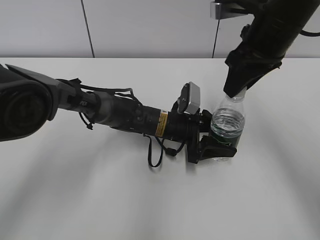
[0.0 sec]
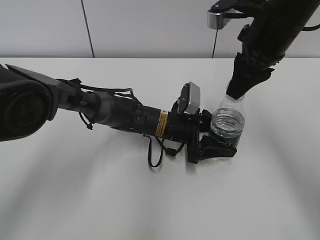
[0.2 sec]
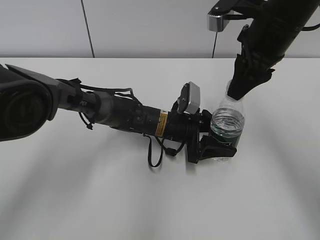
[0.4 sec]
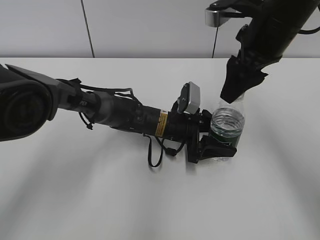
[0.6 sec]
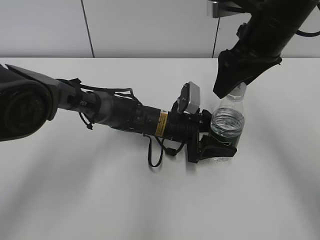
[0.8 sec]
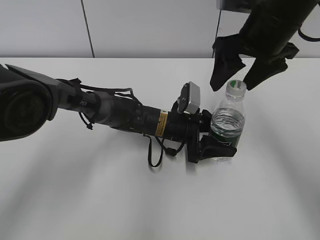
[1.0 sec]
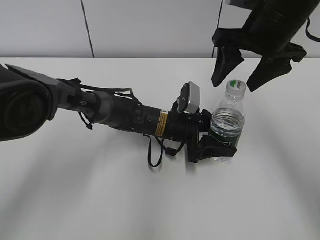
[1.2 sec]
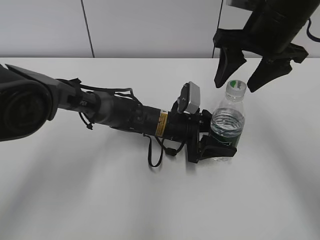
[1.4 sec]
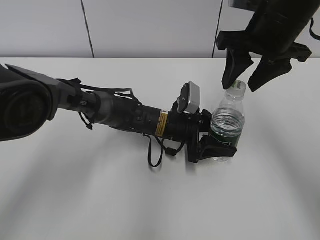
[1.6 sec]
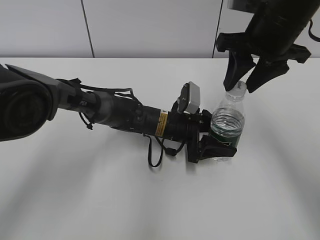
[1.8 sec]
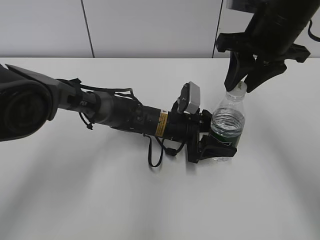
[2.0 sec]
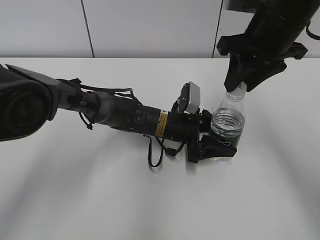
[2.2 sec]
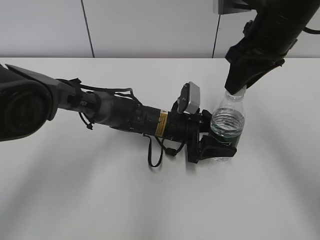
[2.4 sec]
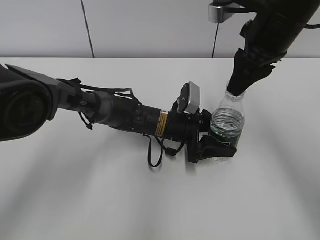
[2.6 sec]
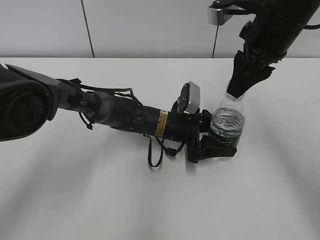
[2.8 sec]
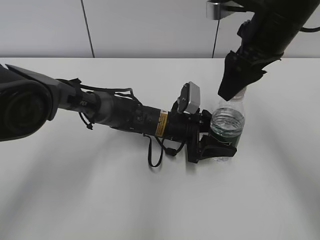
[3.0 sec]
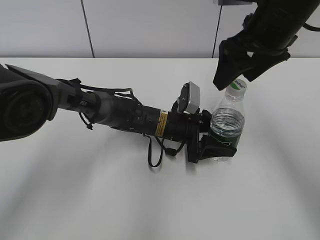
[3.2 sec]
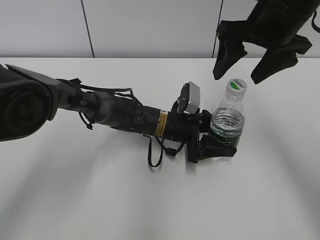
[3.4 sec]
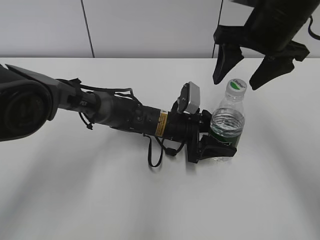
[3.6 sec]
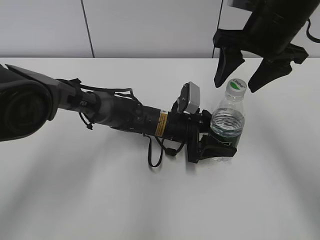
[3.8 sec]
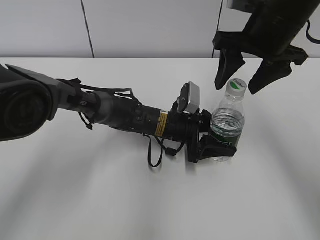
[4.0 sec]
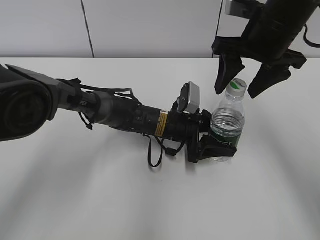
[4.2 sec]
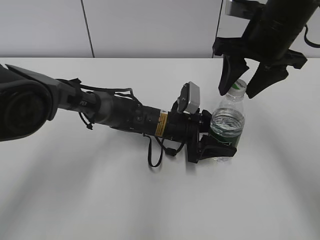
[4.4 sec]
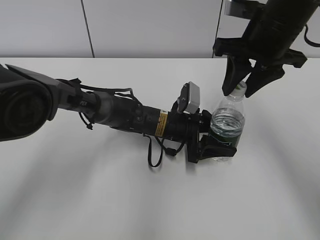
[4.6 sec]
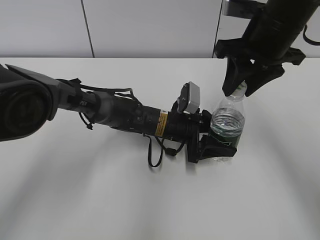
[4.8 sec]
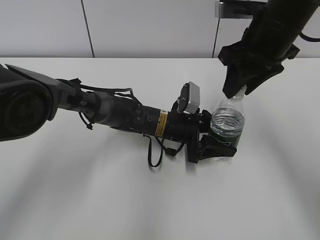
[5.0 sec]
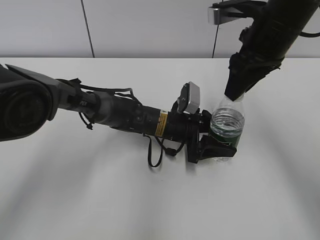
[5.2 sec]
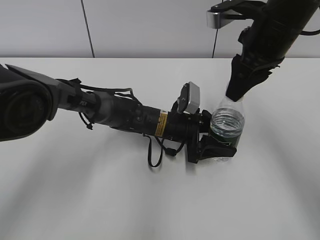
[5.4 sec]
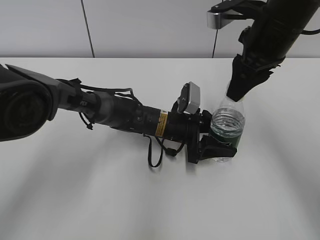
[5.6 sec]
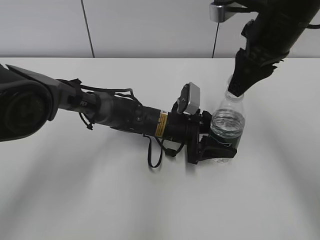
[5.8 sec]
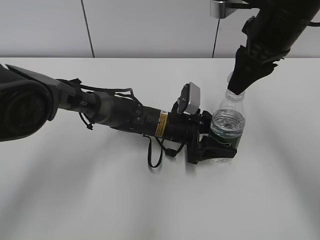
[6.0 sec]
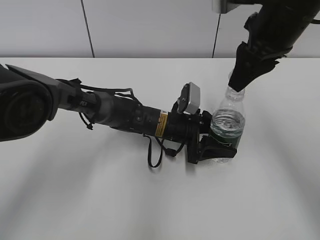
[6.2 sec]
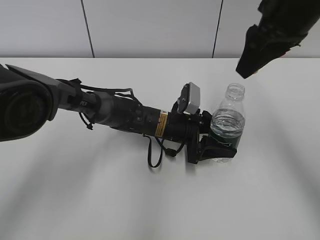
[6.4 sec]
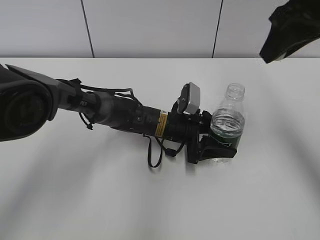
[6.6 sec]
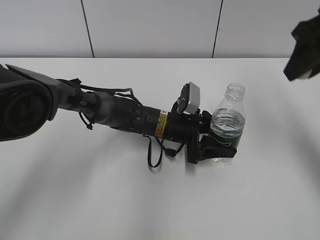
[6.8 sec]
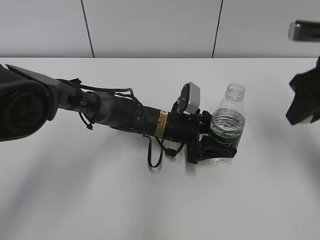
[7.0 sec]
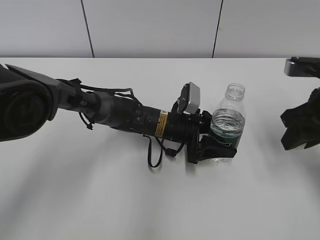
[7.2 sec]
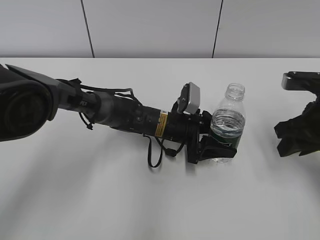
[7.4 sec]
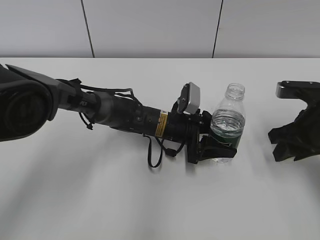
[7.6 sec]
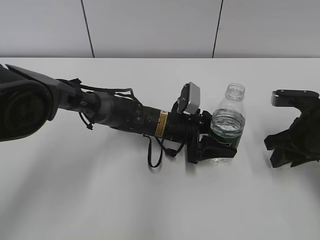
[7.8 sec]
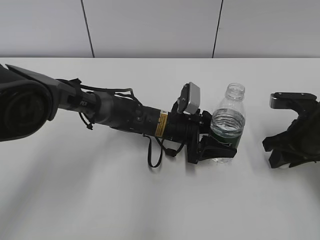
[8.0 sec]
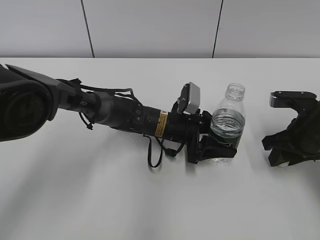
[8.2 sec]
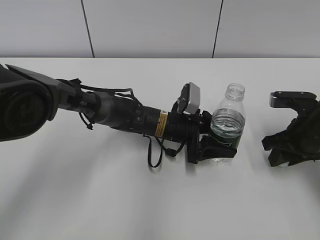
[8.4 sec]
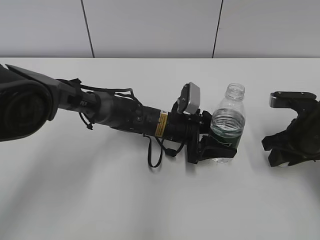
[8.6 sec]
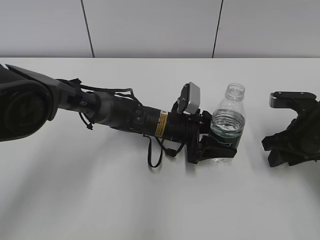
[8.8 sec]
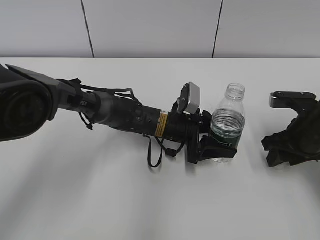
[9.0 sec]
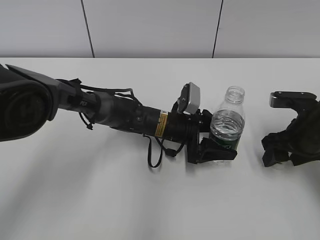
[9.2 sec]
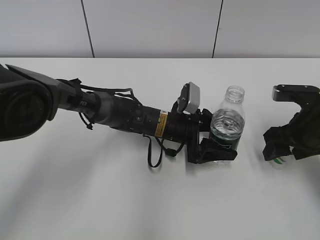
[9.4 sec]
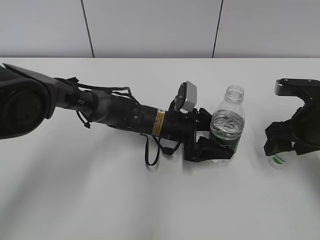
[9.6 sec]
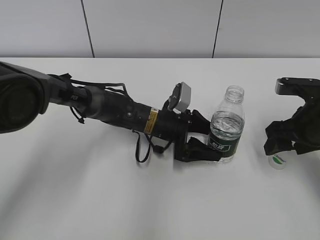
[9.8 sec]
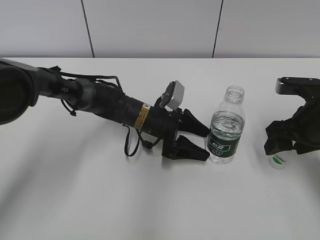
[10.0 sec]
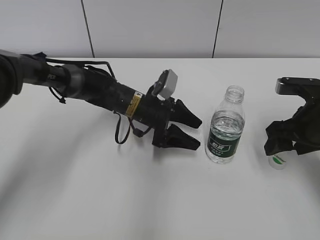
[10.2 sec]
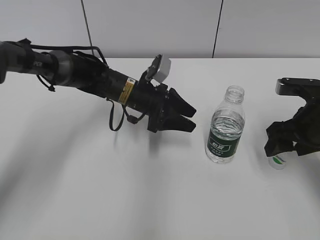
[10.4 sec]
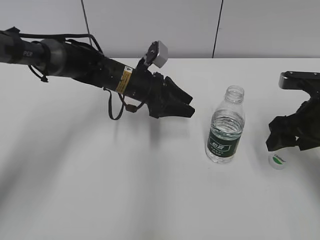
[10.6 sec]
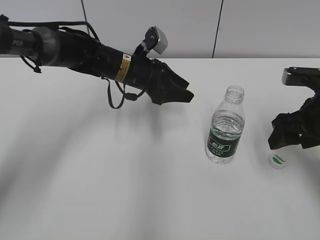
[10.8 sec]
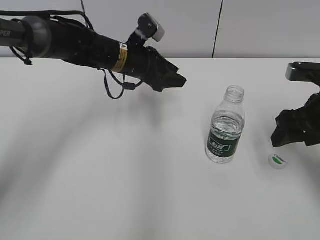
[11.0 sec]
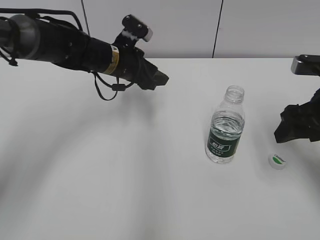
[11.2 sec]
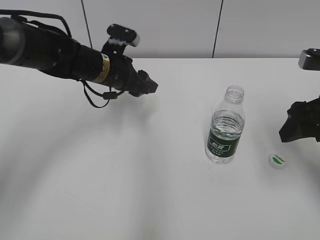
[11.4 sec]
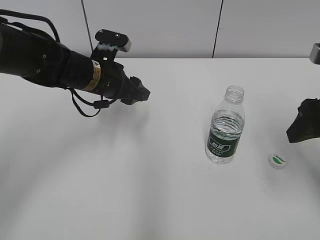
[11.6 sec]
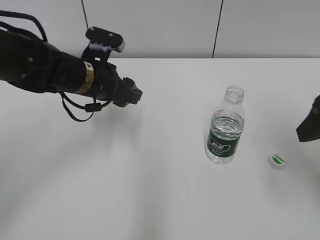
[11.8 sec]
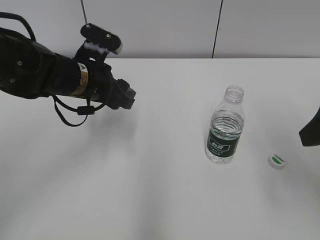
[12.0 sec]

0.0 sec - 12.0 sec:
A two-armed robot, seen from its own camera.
Step, 0.0 sec - 6.4 sec: Twist the bottle cap with the right hand.
Step, 6.6 sec - 9.6 sec: Place the bottle cap on the table with the right hand.
Step, 9.8 sec - 10.0 sec: Place the C'estbon with the left hand.
0.0 sec - 1.6 sec: The right gripper opens up.
1.6 sec - 3.0 sec: The right gripper opens.
4.4 sec - 6.0 sec: The right gripper closes.
6.0 sec - 7.6 sec: The right gripper heads downward, to the right and backward, covering about 20 cm.
7.6 sec - 9.0 sec: The grippers stay close to where they were, moving slightly.
9.0 sec - 10.4 sec: The right gripper opens. The left gripper shifts about 10 cm to the left and upward, and opens and closes again.
10.4 sec - 12.0 sec: The left gripper heads upward, to the left and backward, covering roughly 15 cm. Meanwhile the right gripper is displaced upward and backward by some 15 cm.

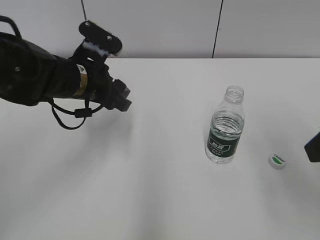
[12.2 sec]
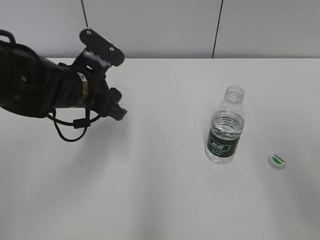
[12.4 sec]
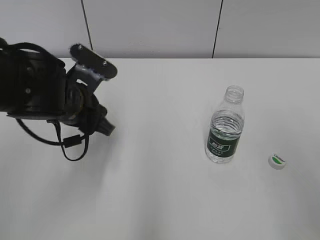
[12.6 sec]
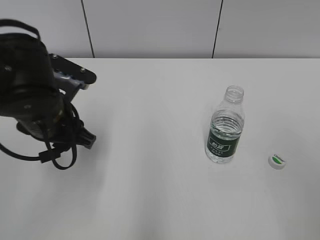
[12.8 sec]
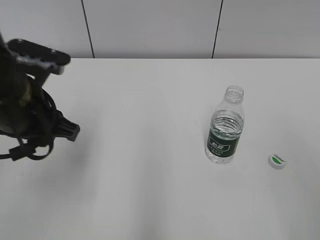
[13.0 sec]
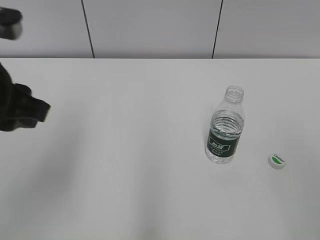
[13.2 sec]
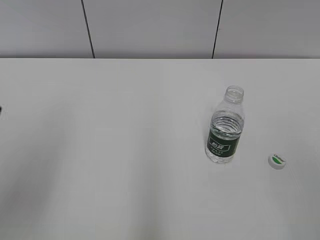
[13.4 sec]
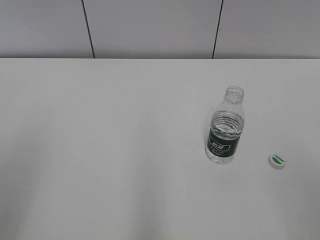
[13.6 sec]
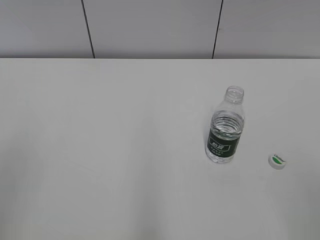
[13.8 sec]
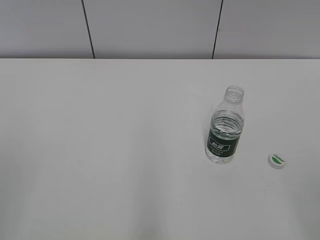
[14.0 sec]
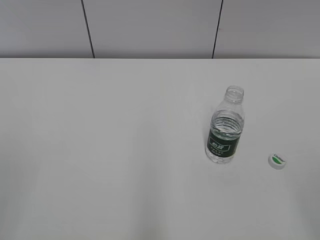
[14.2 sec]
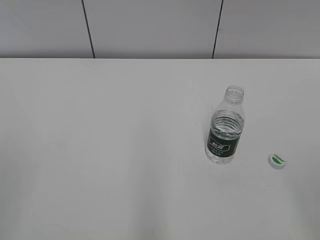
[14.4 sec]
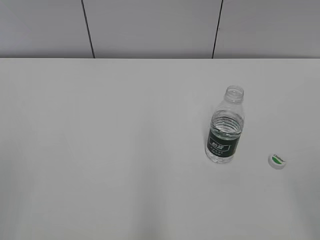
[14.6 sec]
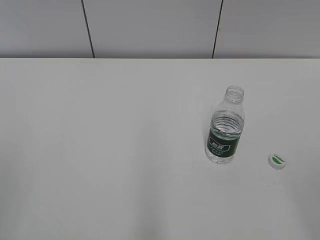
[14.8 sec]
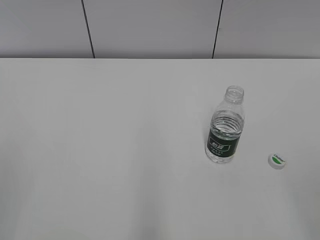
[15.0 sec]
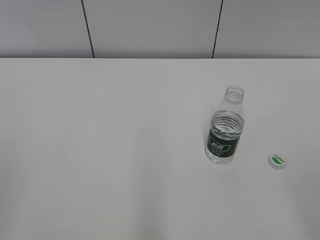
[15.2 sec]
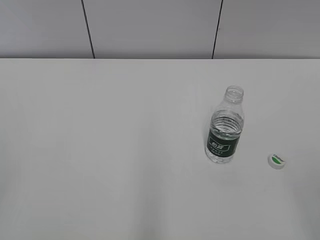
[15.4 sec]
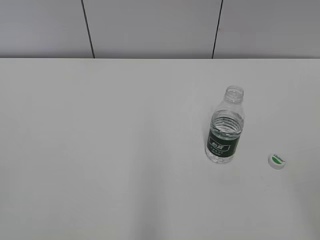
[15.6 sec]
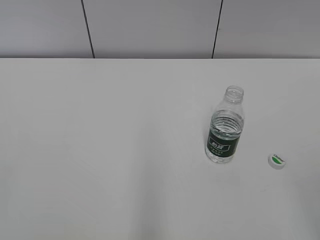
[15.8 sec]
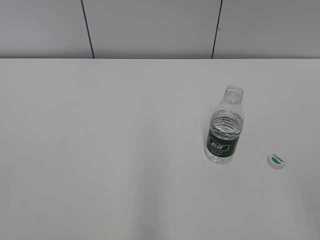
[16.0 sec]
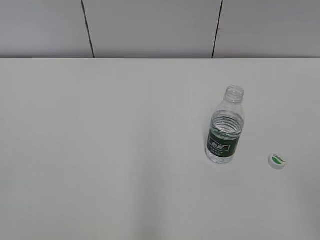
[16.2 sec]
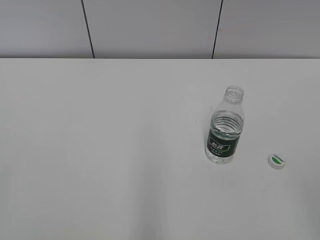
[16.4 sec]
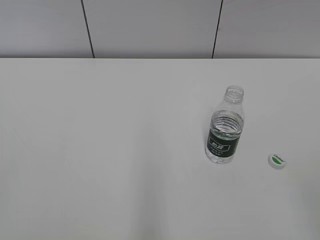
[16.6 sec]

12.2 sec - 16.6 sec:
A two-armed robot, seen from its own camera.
12.2 sec - 13.6 sec: The left gripper goes approximately 30 cm backward, to the left and upward; the right gripper shifts about 15 cm backward.
